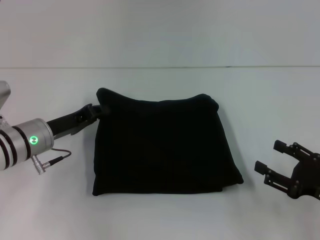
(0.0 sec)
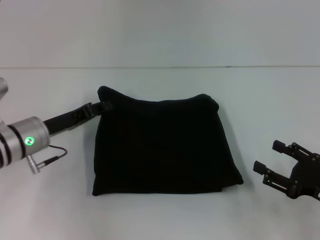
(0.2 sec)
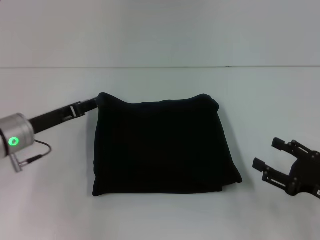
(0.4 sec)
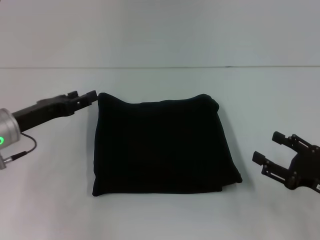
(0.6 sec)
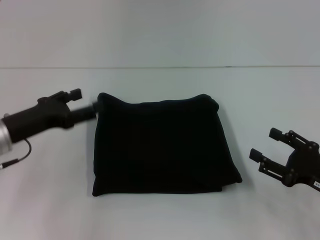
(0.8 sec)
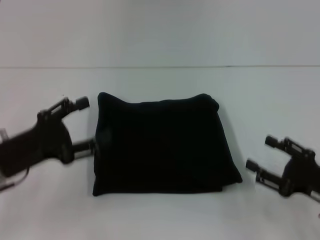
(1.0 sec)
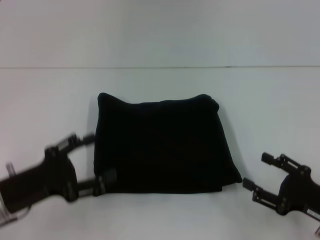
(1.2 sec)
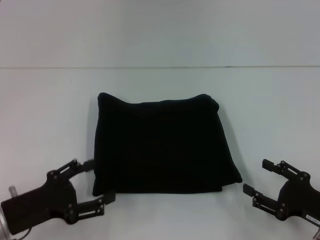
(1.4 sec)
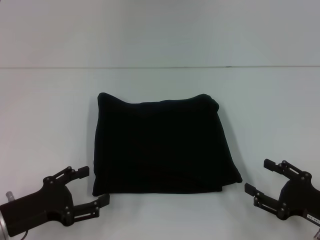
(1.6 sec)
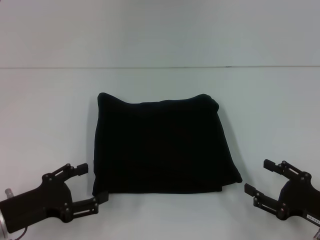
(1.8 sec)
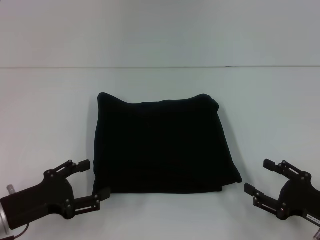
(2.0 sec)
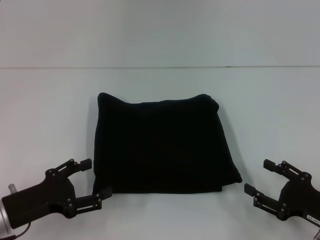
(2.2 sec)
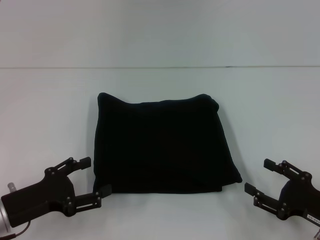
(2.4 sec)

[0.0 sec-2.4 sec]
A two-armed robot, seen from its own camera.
0.0 sec to 1.2 sec: The left gripper is displaced backward by approximately 10 cm, and opens.
1.2 sec to 2.4 sec: There are only small adjustments of the grippers.
